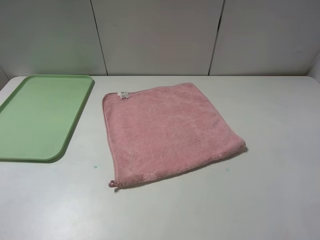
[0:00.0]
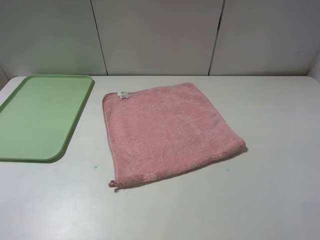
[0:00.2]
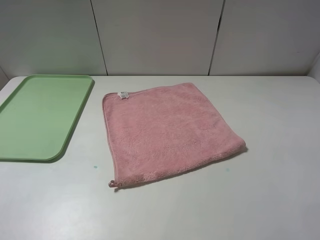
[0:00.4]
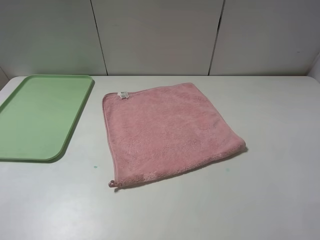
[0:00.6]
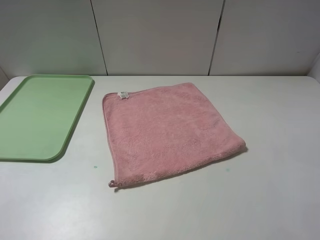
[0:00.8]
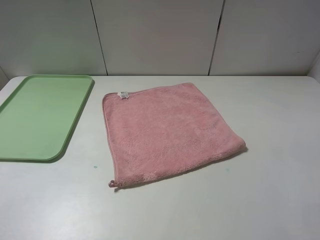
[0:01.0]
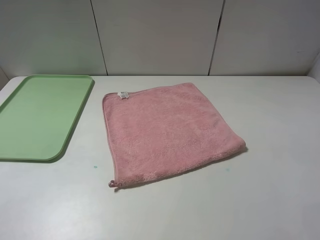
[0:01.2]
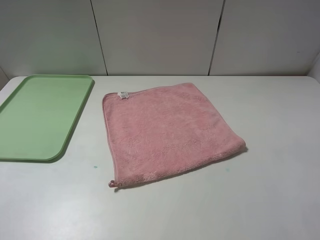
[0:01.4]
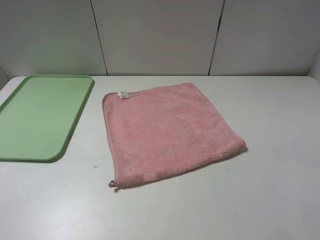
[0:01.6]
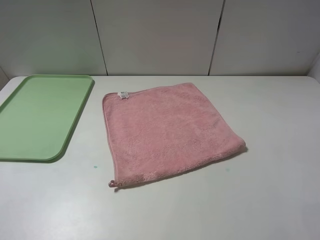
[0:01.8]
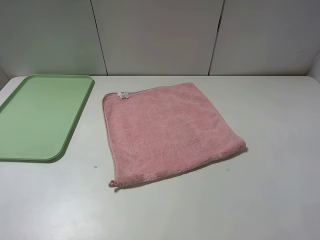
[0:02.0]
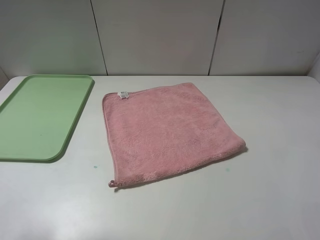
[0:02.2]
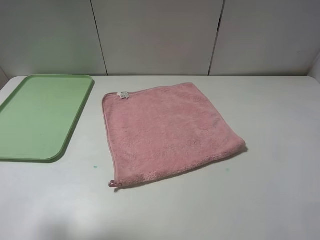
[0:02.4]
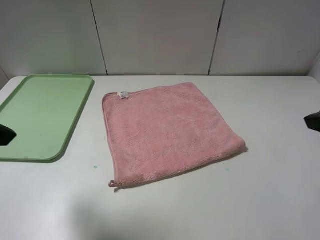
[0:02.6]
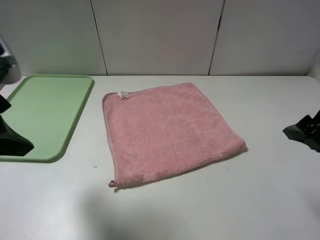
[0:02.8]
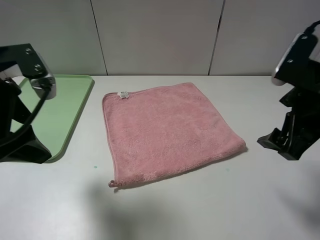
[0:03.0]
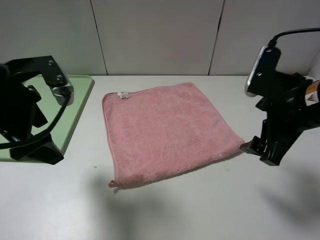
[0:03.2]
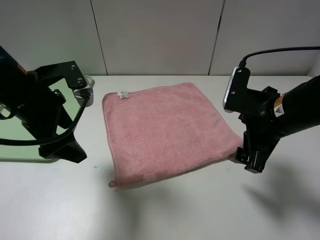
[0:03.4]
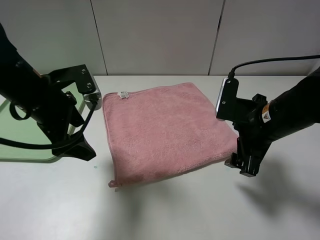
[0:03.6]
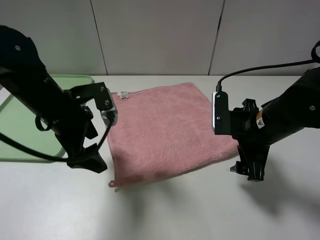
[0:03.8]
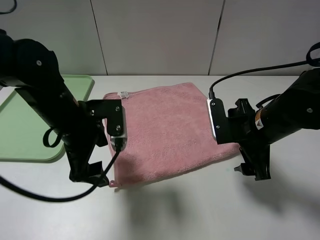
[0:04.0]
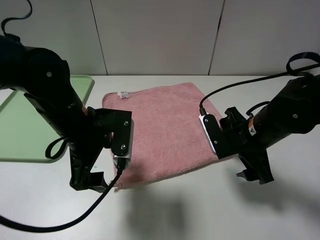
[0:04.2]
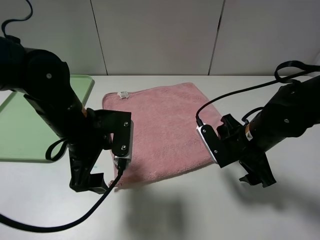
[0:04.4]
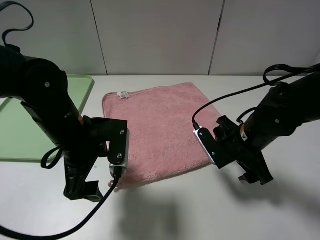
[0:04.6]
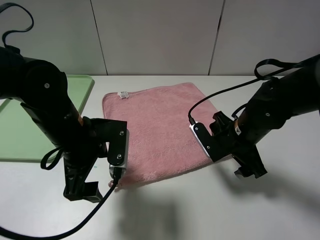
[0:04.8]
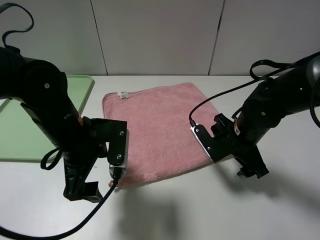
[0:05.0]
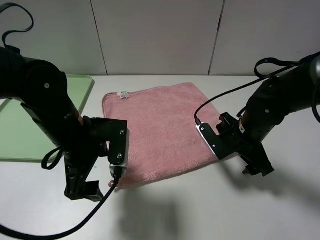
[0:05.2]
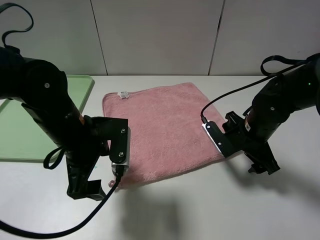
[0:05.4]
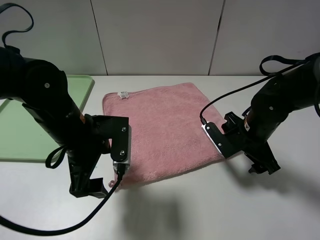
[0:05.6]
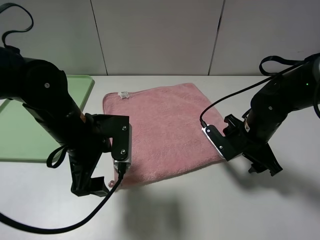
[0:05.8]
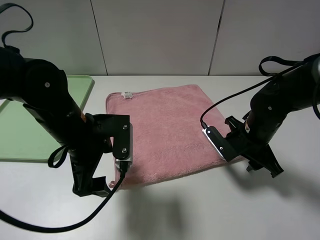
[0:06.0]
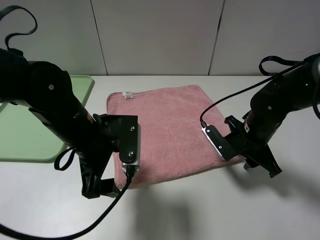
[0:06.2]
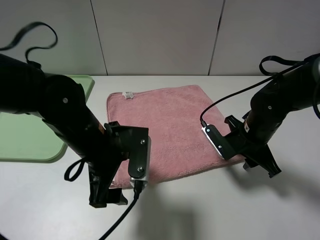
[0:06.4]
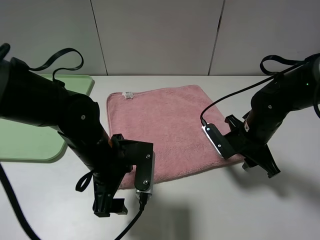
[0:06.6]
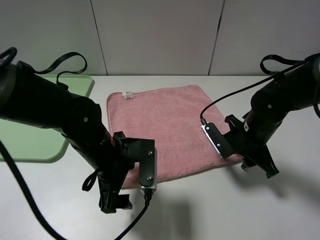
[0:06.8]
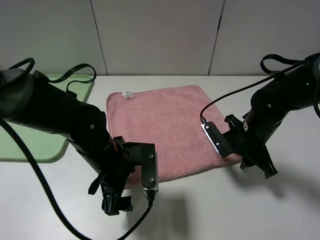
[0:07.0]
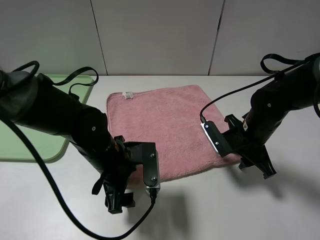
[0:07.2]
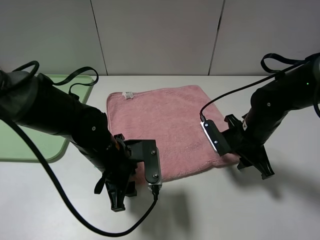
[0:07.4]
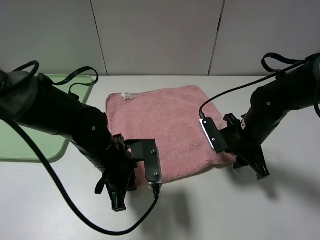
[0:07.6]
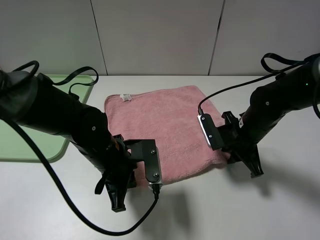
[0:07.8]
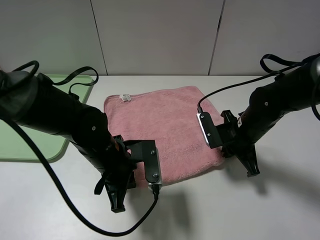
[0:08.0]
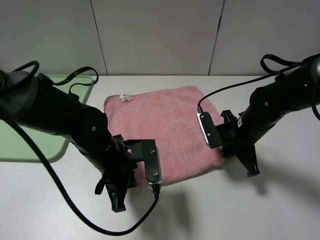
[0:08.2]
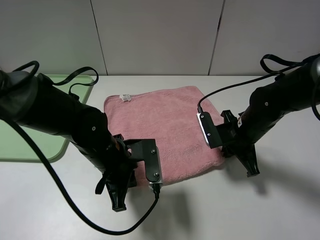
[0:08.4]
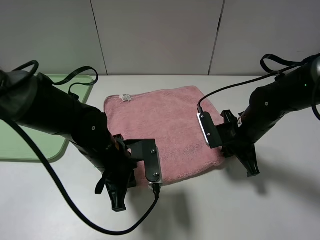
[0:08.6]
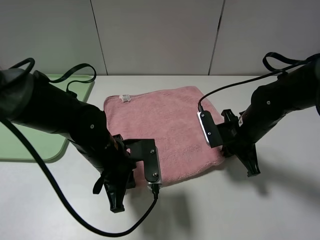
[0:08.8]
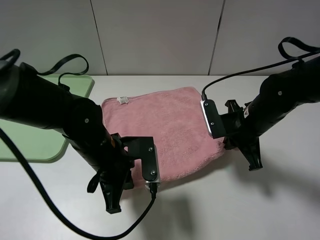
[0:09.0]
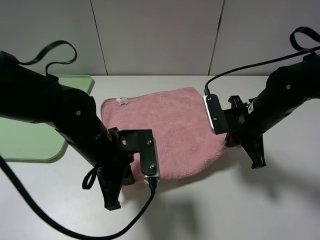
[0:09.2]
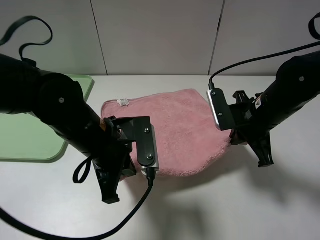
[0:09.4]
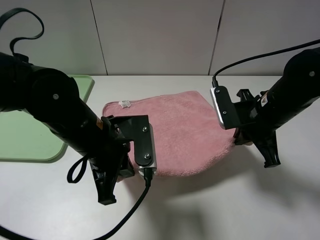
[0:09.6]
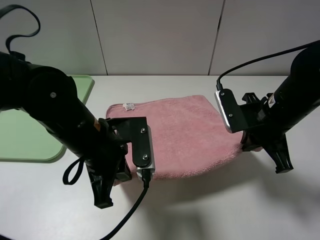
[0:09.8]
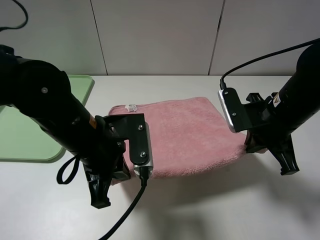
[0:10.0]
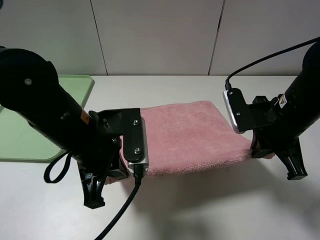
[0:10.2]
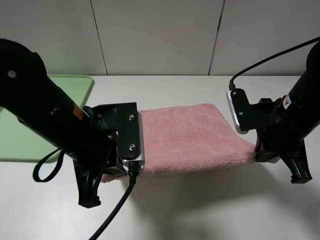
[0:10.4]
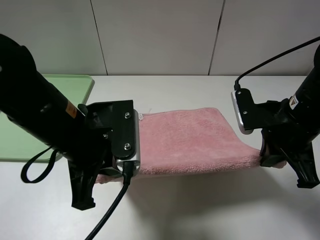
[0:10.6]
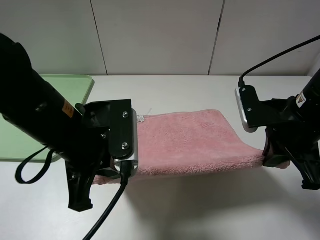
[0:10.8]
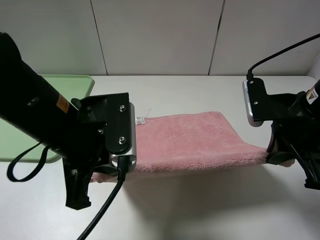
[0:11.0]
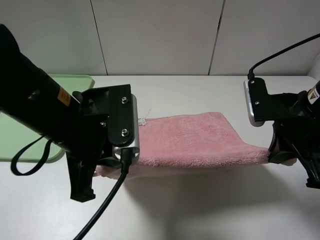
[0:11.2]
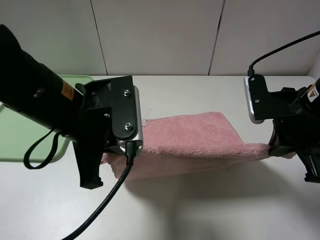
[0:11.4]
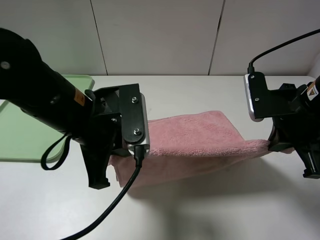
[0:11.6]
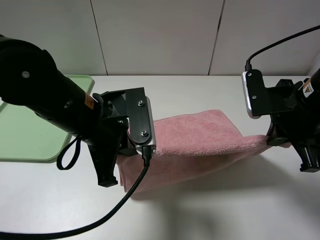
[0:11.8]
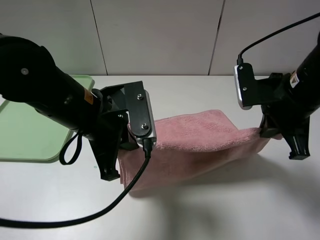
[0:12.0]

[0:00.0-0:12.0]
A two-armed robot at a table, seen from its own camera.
0:00.0 to 0:01.6: Both grippers stay put.
0:01.6 to 0:03.0: The left gripper goes about 20 cm forward and to the right; the right gripper shifts roughly 20 cm forward and to the left.
0:03.0 to 0:04.4: The right gripper travels downward by about 15 cm; the left gripper is displaced downward and to the right by about 15 cm.
0:04.4 to 0:06.0: The right gripper closes.
0:06.0 to 0:07.6: The left gripper is displaced downward by approximately 5 cm, and closes up.
0:07.6 to 0:09.0: The right gripper closes its fingers.
0:09.0 to 0:10.4: The right gripper goes roughly 10 cm upward and backward; the left gripper is displaced upward by some 10 cm.

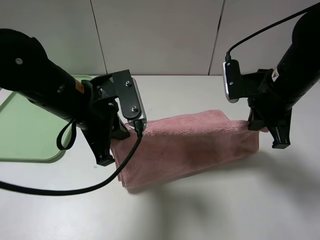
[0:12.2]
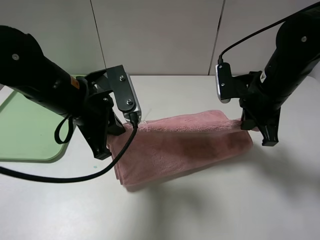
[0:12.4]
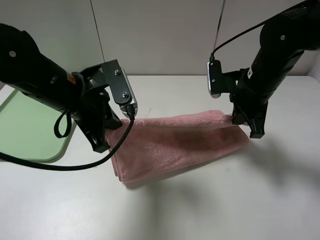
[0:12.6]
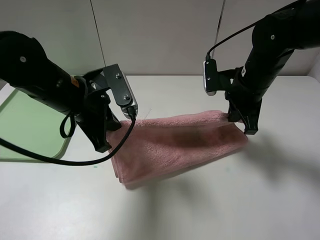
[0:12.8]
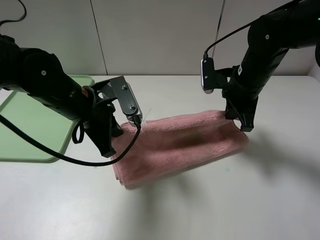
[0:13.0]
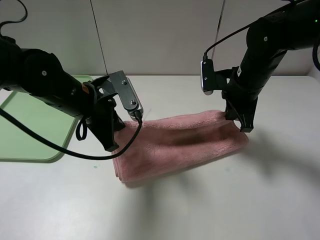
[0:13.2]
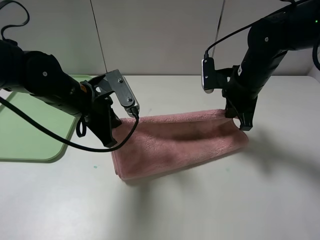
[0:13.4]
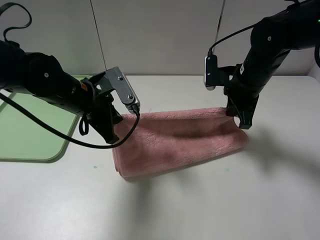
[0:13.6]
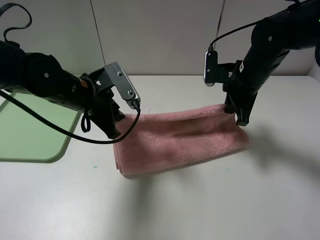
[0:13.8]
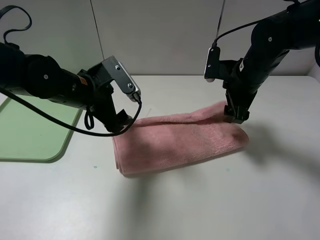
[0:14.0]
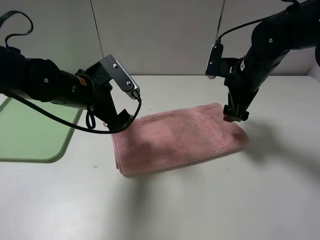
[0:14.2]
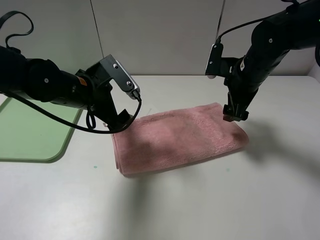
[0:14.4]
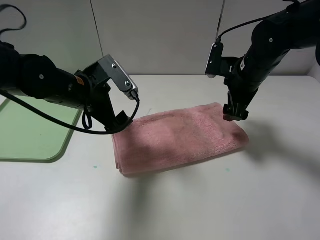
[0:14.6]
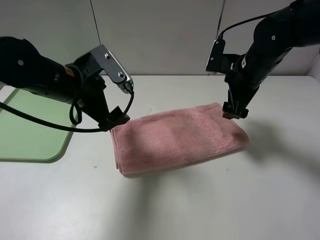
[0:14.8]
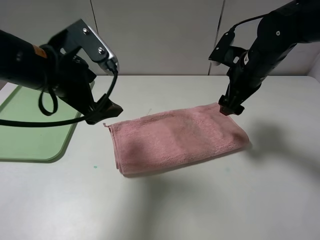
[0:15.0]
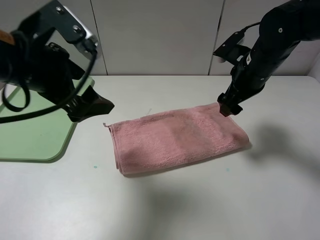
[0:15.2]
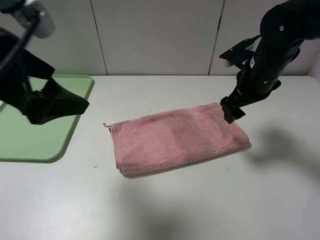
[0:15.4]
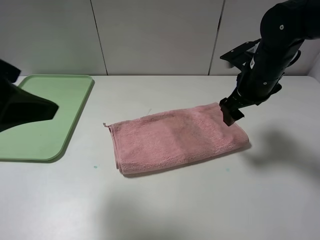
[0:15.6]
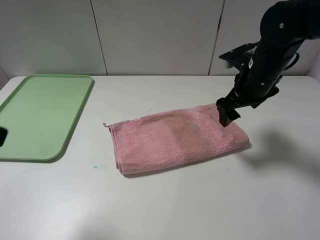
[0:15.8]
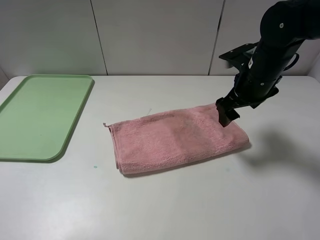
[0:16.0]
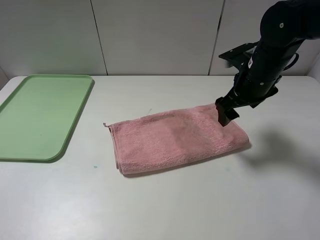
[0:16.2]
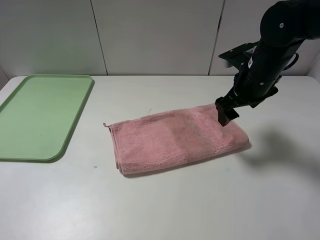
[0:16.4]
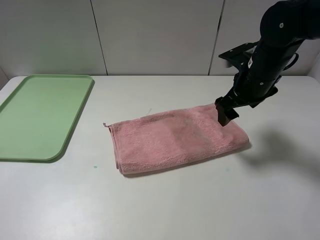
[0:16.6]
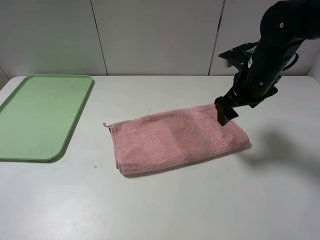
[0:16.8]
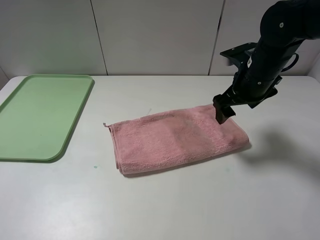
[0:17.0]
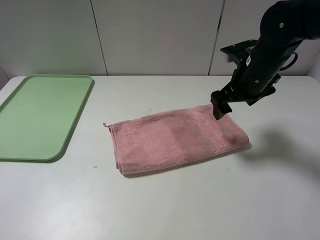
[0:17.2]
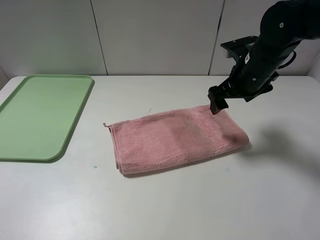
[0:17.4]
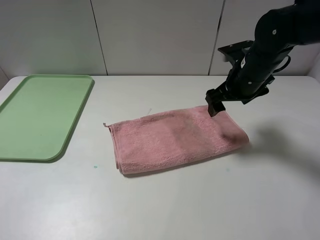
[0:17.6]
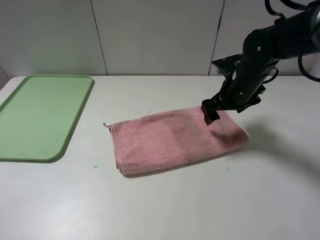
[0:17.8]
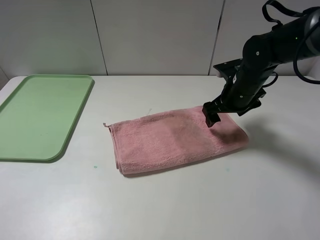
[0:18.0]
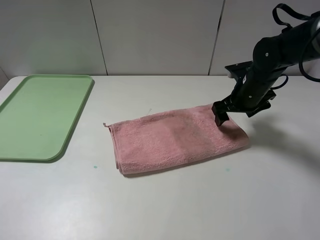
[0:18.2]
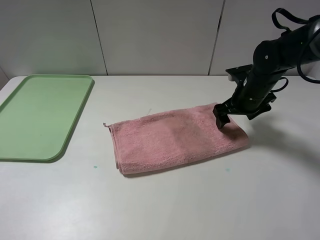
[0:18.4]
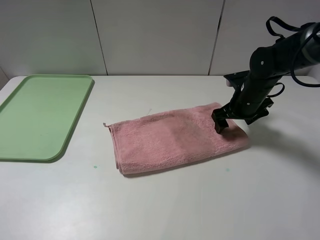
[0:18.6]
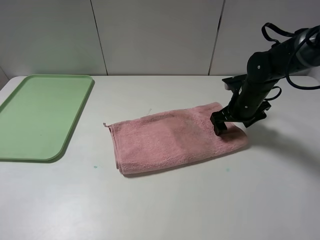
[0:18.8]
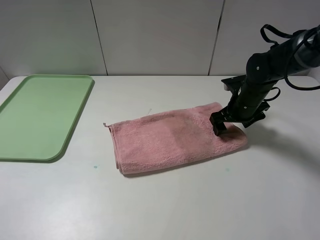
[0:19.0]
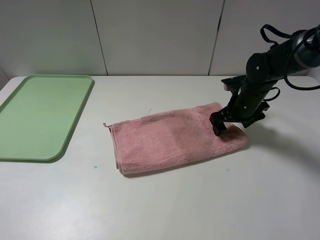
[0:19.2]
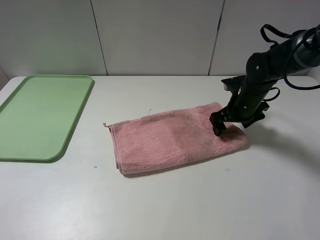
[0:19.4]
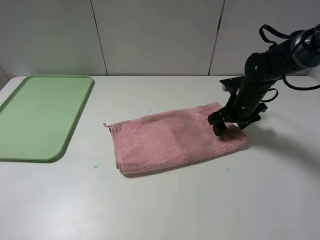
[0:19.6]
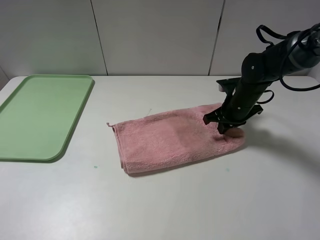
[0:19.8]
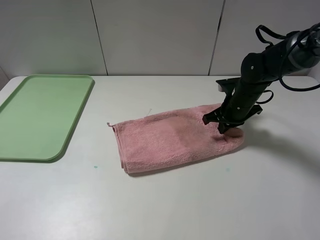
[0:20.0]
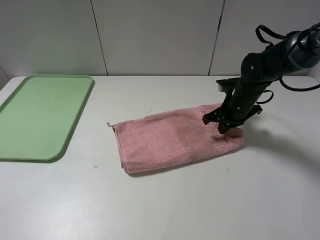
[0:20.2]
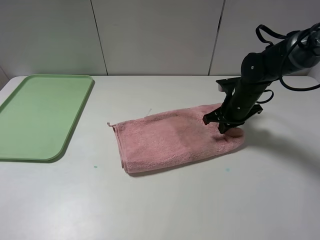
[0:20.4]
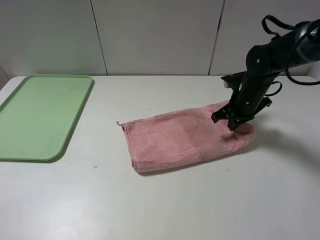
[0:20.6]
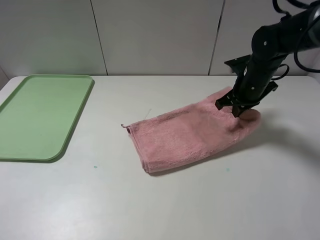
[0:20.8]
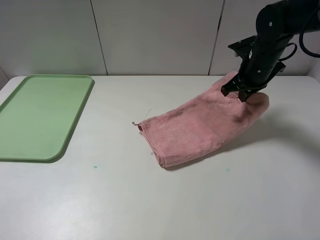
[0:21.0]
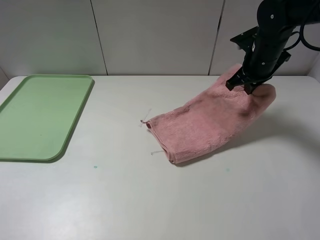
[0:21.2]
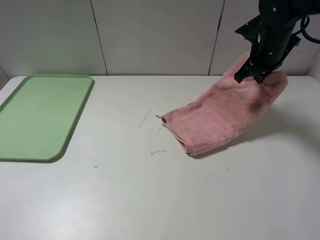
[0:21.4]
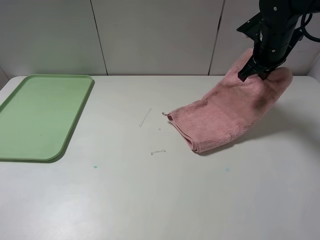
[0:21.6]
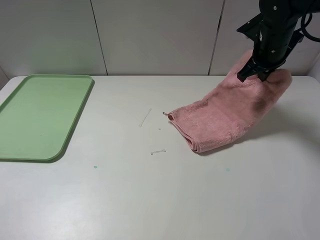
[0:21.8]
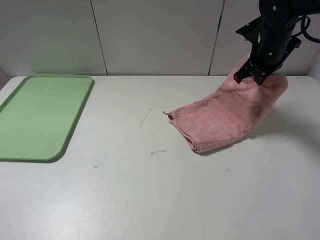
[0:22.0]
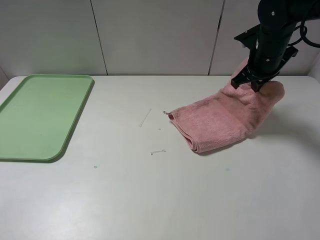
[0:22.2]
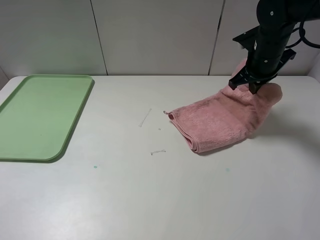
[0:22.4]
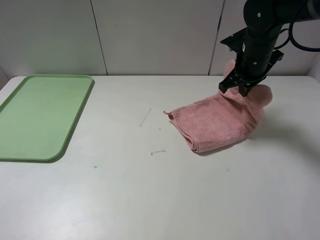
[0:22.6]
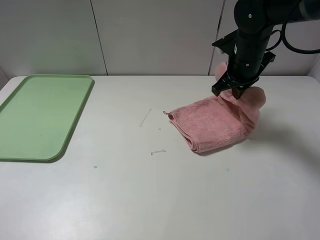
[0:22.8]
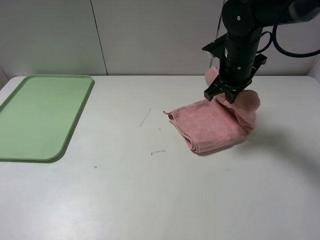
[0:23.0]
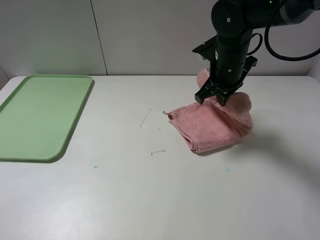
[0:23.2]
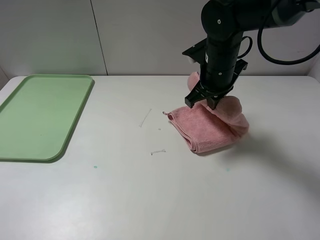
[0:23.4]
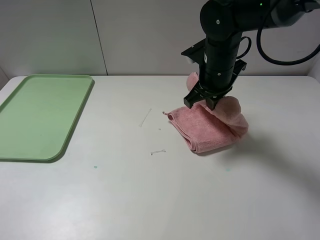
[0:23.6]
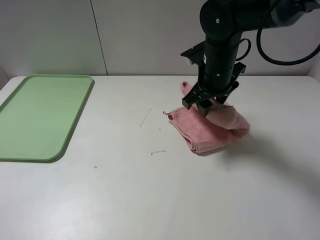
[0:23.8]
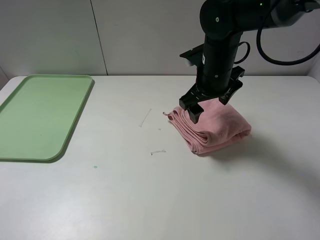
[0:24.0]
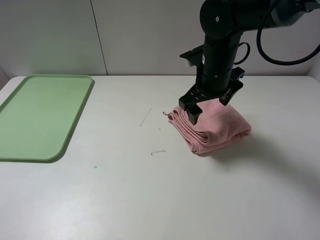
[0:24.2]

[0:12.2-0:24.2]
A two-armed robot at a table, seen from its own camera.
Step, 0:14.2 to 0:23.8: Fold the pink towel from right to left with right gripper.
0:12.2 to 0:13.8: Both grippers travel together forward, some 5 cm. The right gripper opens up.
0:13.8 to 0:15.2: The right gripper opens up. Meanwhile the left gripper is displaced upward and backward by roughly 10 cm, and opens up.
0:15.2 to 0:16.6: The left gripper goes some 25 cm backward and to the left.
0:16.6 to 0:18.2: The right gripper heads downward, covering about 5 cm.
0:18.2 to 0:19.8: The right gripper closes.
0:19.8 to 0:21.2: The right gripper is displaced upward by about 10 cm.
0:21.2 to 0:22.6: There are only small adjustments of the grippers.
0:22.6 to 0:24.2: The right gripper moves to the left and backward, about 10 cm, and opens.
